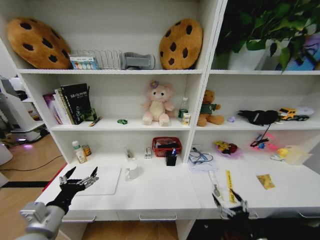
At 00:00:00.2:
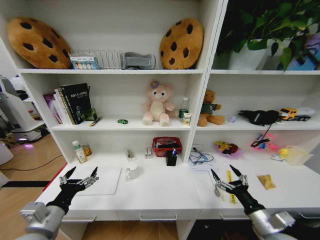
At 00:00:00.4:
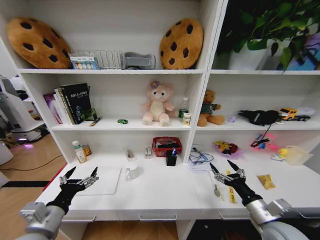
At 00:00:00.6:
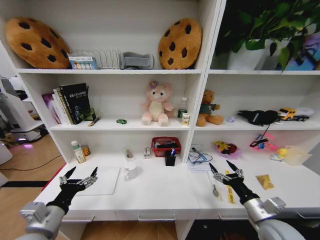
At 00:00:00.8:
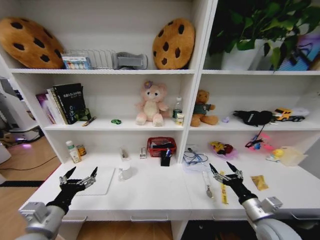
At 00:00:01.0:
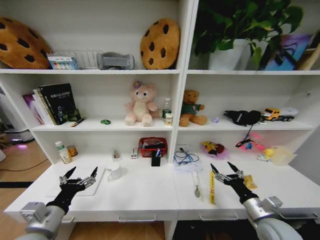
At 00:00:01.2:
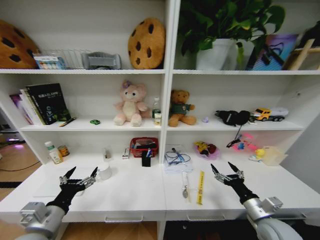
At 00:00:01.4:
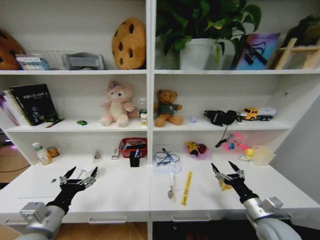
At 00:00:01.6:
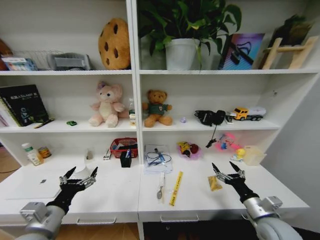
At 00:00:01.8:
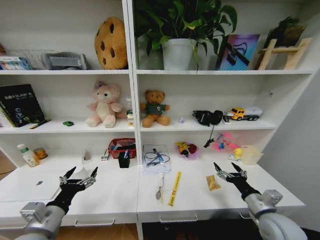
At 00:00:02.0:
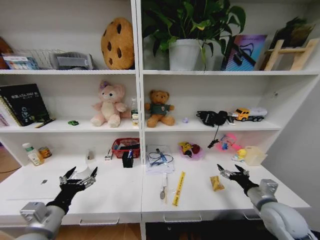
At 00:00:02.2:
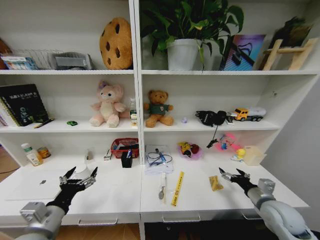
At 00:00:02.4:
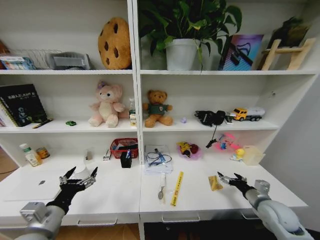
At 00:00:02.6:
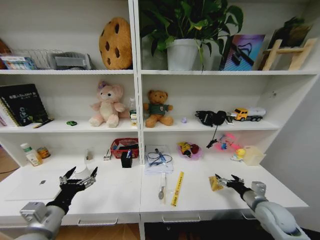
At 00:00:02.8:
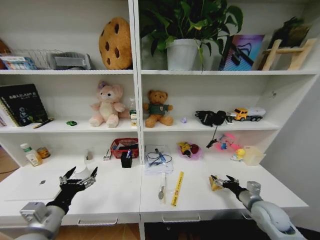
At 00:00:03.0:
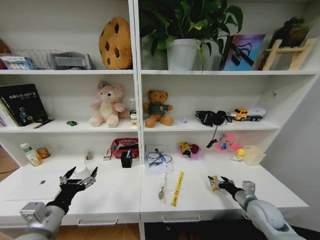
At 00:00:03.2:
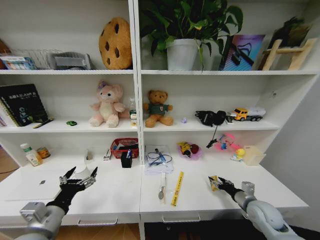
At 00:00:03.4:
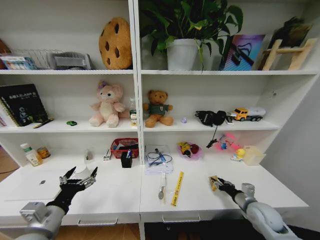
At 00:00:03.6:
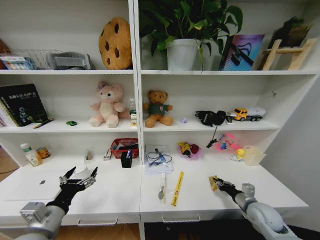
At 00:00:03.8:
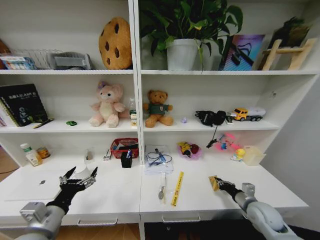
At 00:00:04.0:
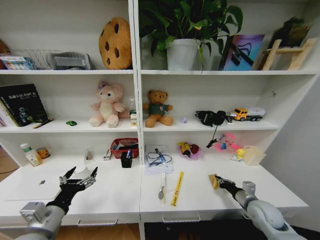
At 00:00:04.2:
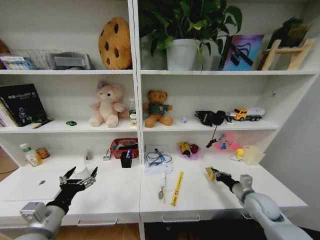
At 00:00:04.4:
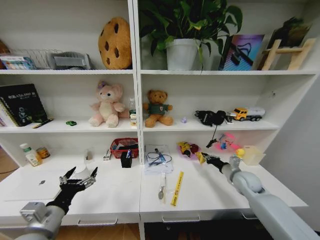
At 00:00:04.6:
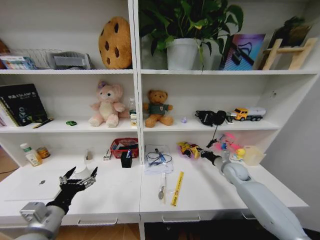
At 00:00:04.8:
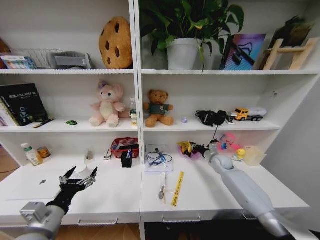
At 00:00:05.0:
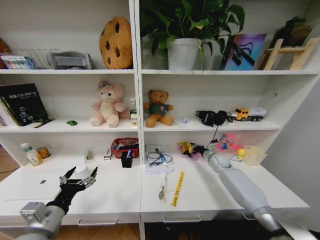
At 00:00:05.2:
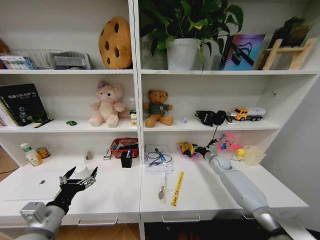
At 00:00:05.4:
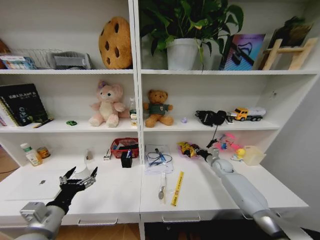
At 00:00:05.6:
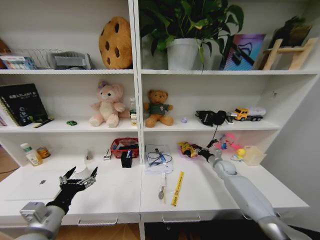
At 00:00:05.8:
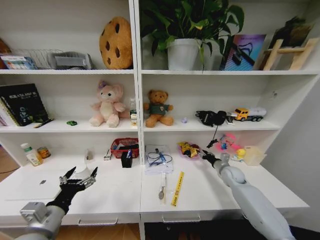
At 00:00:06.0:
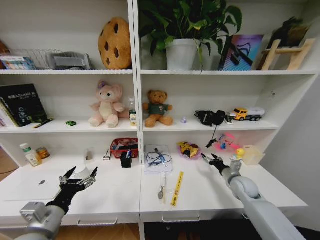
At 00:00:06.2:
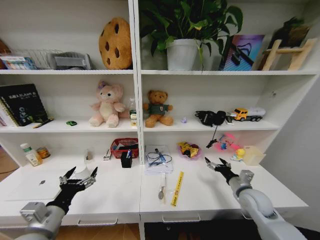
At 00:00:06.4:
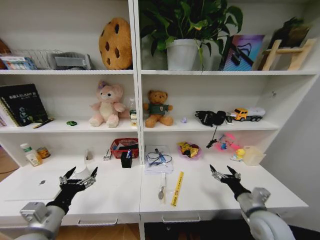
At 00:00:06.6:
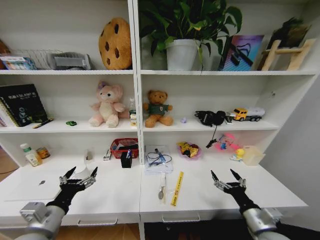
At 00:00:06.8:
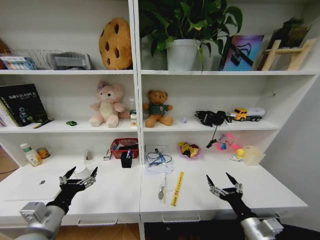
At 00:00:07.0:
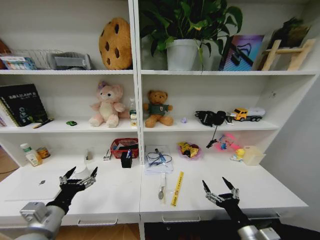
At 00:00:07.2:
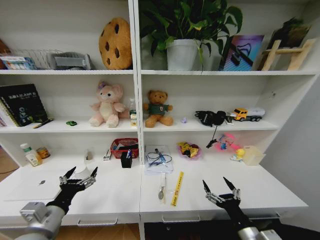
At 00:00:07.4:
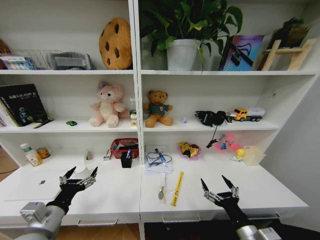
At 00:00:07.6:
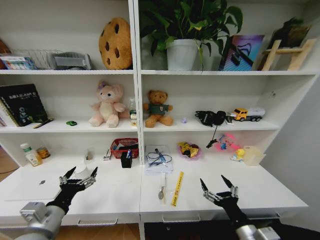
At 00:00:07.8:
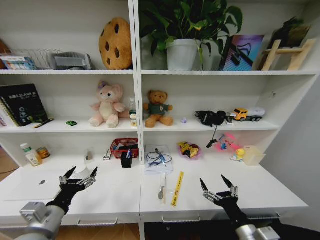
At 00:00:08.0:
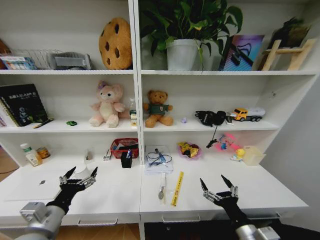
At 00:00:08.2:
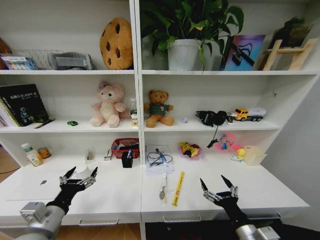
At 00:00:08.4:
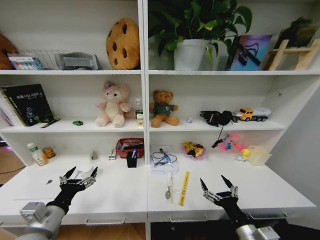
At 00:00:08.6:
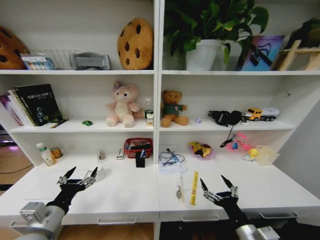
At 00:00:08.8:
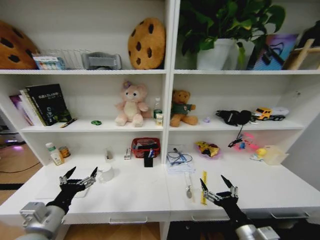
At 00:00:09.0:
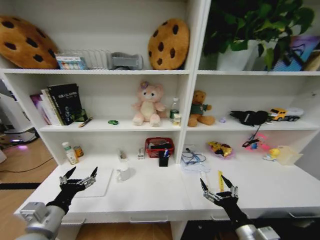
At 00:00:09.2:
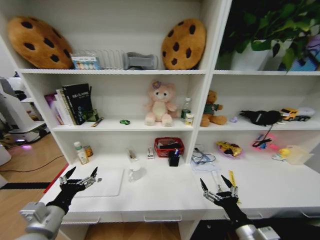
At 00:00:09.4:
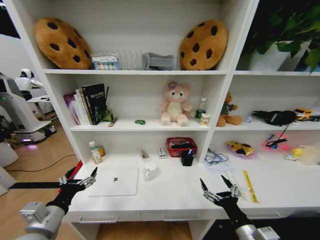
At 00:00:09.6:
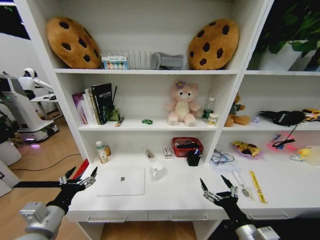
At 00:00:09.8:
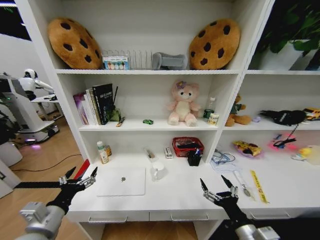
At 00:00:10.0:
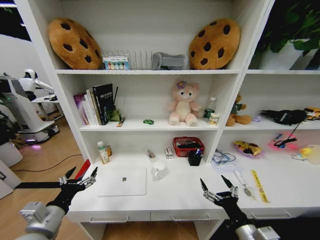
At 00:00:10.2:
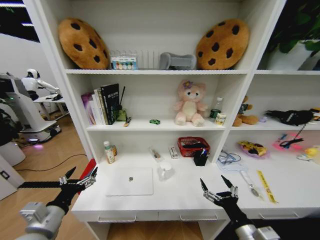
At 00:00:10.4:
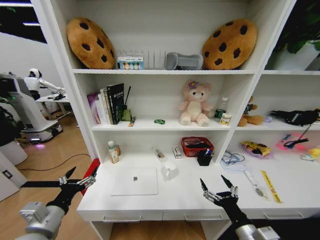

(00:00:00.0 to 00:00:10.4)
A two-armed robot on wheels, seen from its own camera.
Task of the whole recording: Organize the objects on the table.
00:00:00.0 - 00:00:01.4: The right gripper shifts approximately 10 cm forward and upward.
00:00:01.4 - 00:00:03.0: The right gripper is displaced forward by approximately 5 cm.
00:00:03.0 - 00:00:04.4: The right gripper shifts about 10 cm forward, and closes up.
00:00:04.4 - 00:00:06.0: The right gripper reaches roughly 15 cm forward, then returns, and opens its fingers.
00:00:06.0 - 00:00:07.4: The right gripper heads backward and to the left, covering about 25 cm.

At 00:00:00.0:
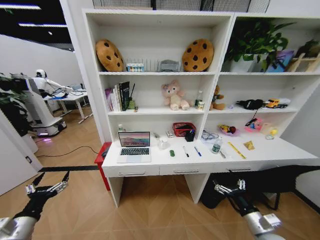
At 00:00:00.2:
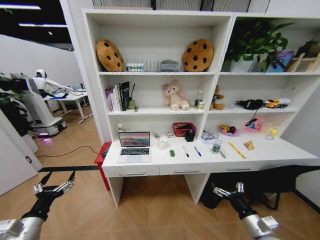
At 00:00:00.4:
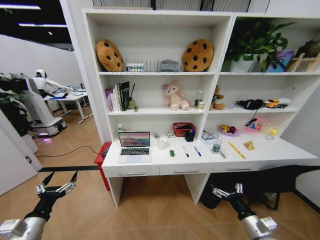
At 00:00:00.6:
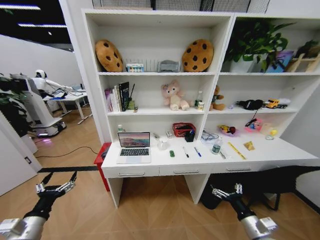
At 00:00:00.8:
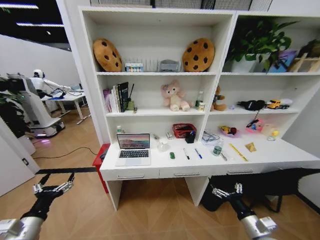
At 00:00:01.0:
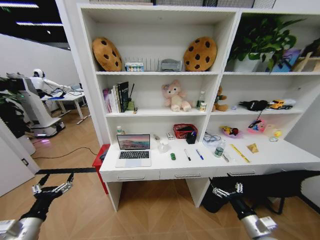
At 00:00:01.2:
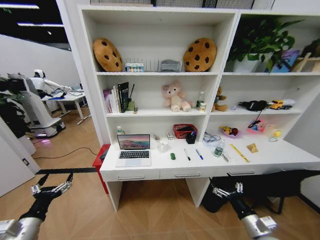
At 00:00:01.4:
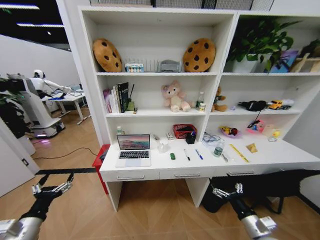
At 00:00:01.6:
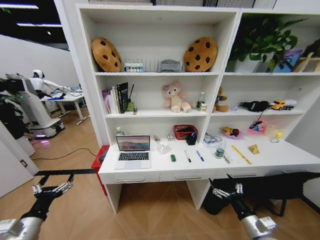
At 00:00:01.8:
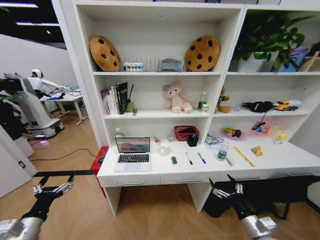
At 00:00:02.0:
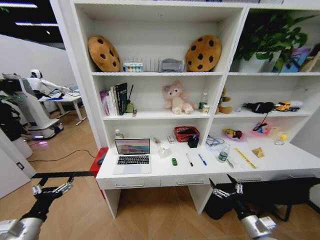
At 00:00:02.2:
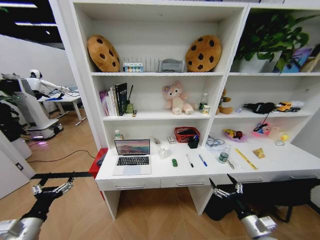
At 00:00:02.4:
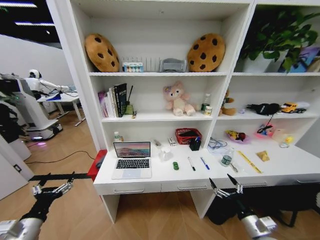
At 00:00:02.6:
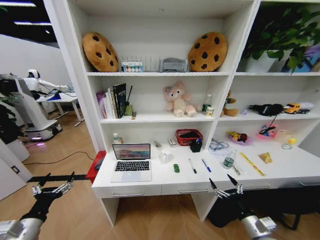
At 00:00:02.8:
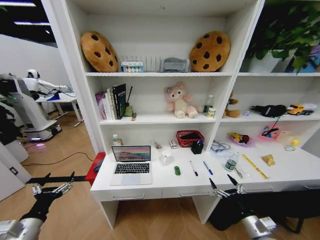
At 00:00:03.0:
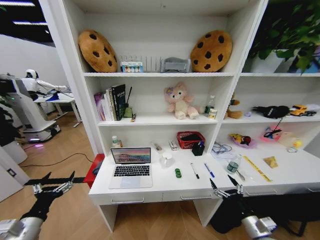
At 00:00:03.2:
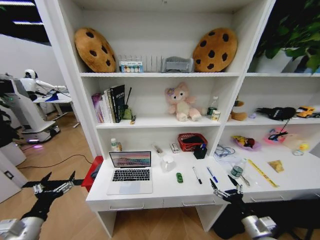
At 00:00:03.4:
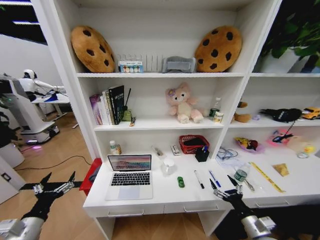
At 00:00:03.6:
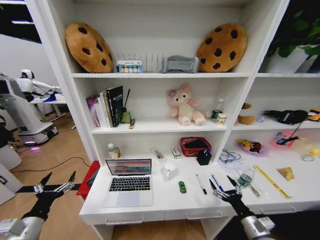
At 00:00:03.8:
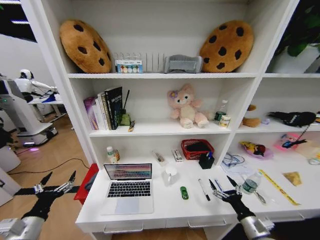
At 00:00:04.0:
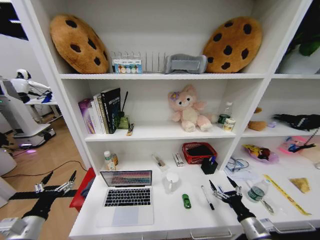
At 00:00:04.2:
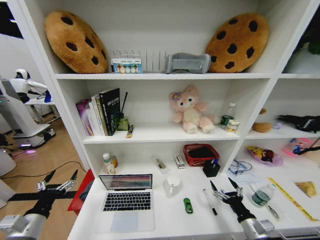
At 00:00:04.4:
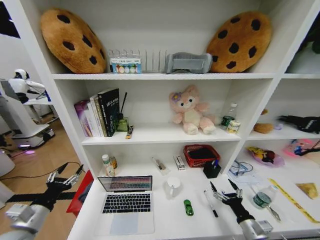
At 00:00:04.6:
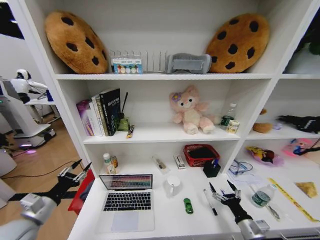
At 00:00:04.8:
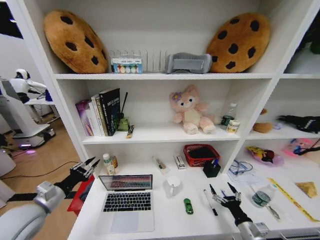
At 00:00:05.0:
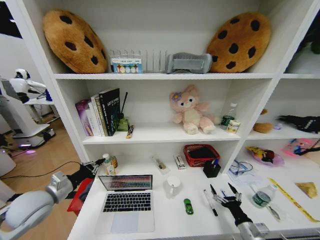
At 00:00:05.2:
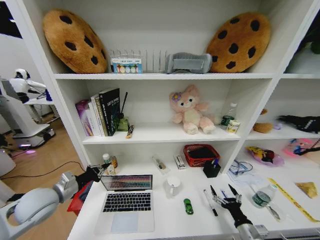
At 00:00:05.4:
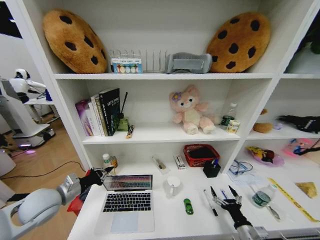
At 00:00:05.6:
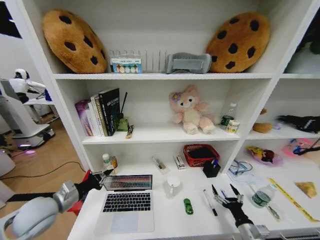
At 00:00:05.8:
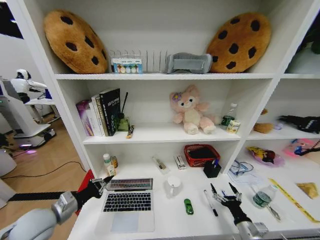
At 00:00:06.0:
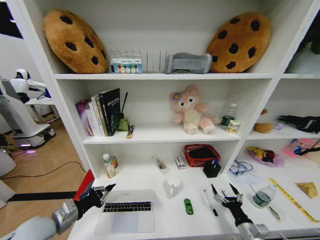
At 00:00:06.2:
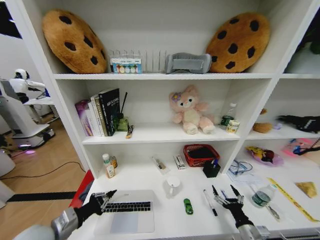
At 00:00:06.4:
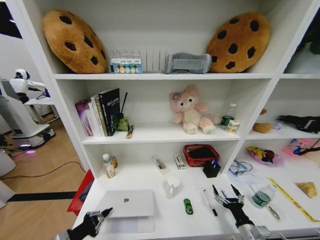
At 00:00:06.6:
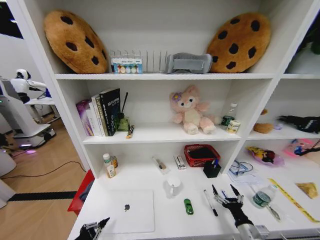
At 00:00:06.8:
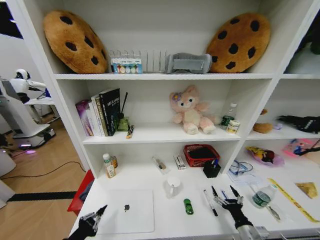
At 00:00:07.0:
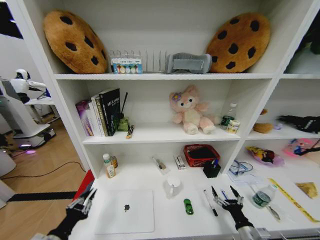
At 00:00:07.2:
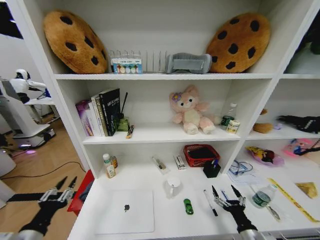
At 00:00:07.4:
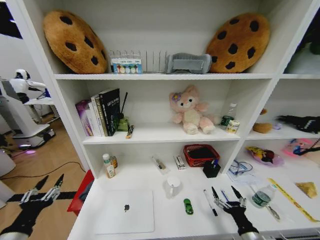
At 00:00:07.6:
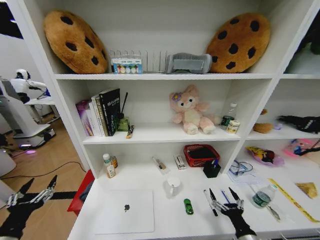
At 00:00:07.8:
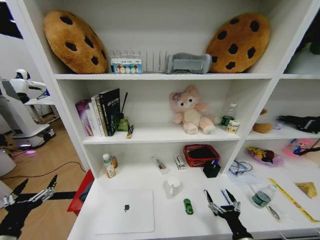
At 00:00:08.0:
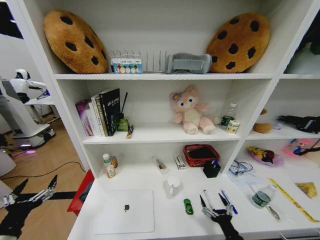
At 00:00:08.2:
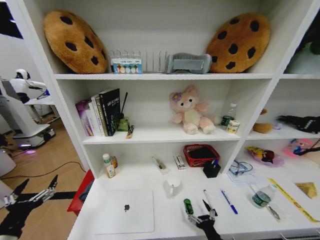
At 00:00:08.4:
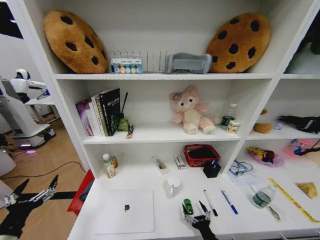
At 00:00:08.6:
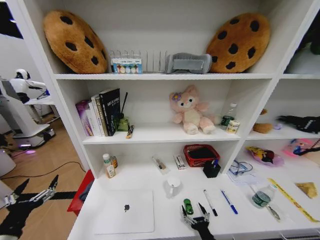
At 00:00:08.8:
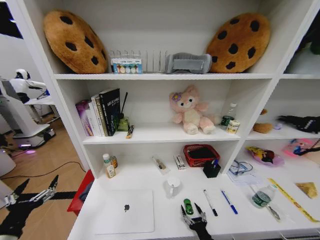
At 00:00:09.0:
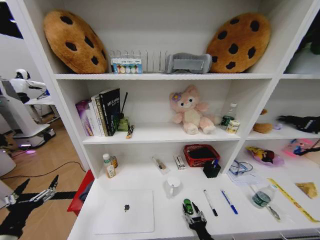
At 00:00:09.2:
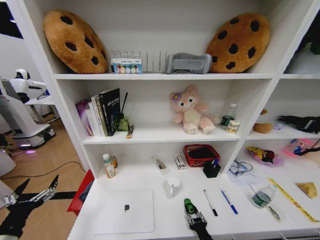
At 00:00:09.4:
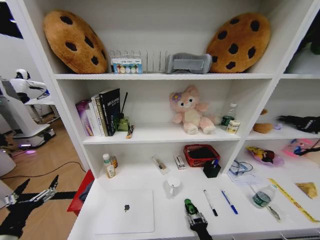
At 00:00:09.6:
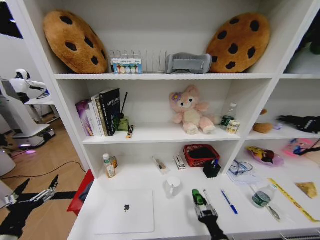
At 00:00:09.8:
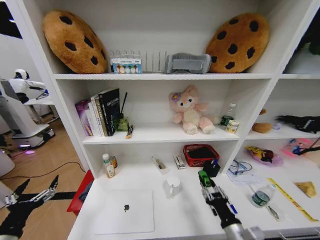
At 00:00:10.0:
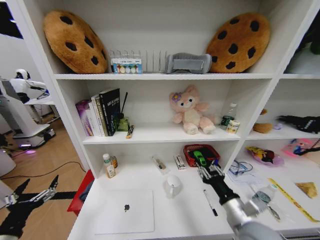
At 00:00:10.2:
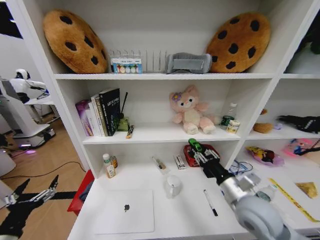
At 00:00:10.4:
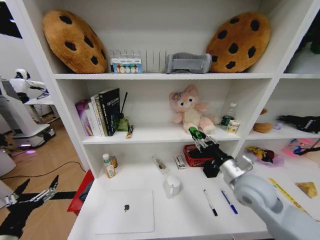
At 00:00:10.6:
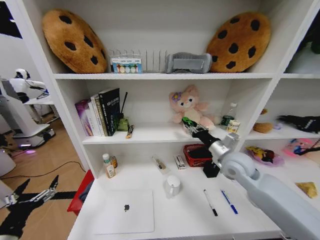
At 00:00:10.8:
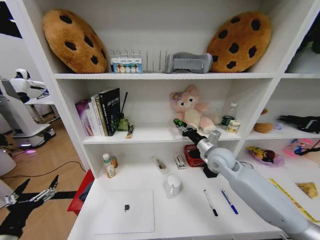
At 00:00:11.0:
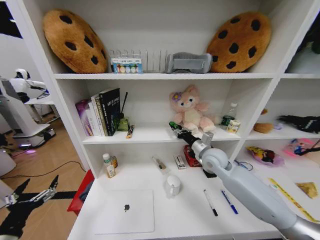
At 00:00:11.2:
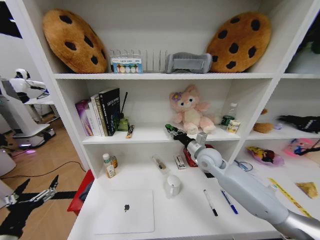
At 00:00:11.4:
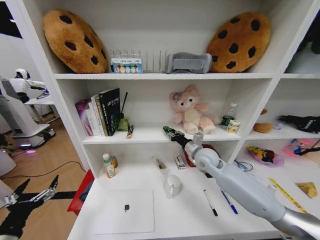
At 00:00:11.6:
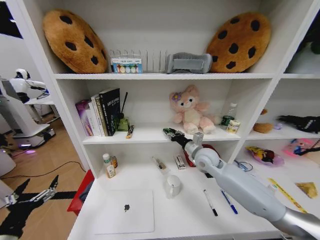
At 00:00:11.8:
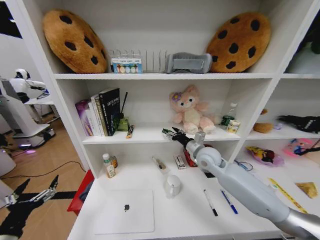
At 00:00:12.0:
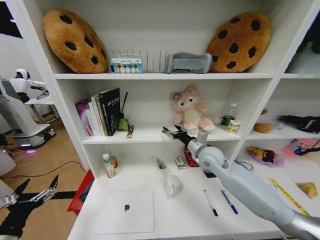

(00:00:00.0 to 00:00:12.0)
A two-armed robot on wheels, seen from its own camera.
Task of the whole recording: Organize the objects on the table.
00:00:04.4 - 00:00:06.0: The left gripper moves to the right, approximately 5 cm, and closes up.
00:00:06.0 - 00:00:07.6: The right gripper changes place by roughly 5 cm. Meanwhile the left gripper is displaced backward and to the left by about 10 cm, and opens up.
00:00:07.6 - 00:00:09.0: The right gripper goes some 15 cm to the left and downward.
00:00:09.0 - 00:00:10.4: The right gripper heads upward and forward, covering some 35 cm.
00:00:10.4 - 00:00:12.0: The right gripper travels forward and to the left by some 15 cm, and opens up.
